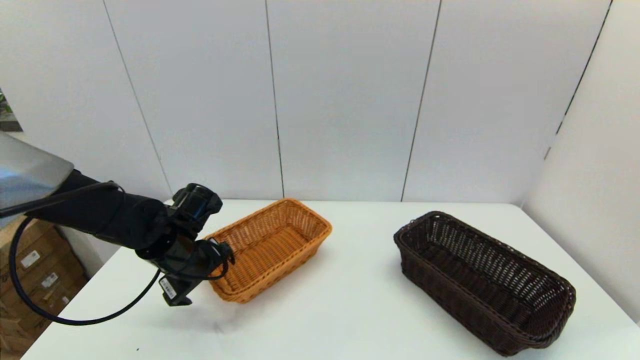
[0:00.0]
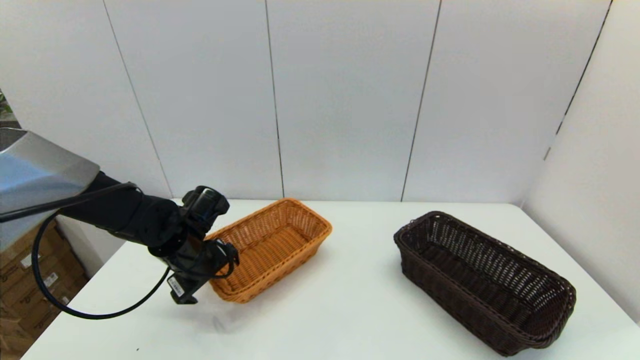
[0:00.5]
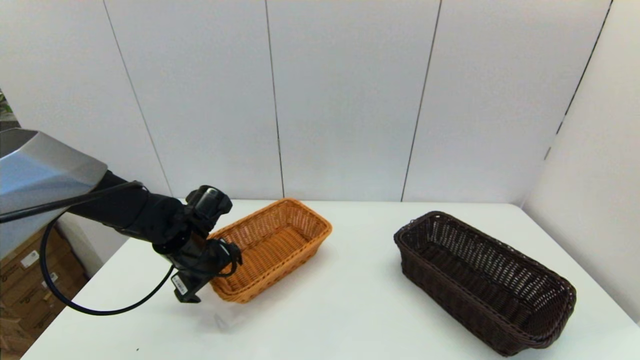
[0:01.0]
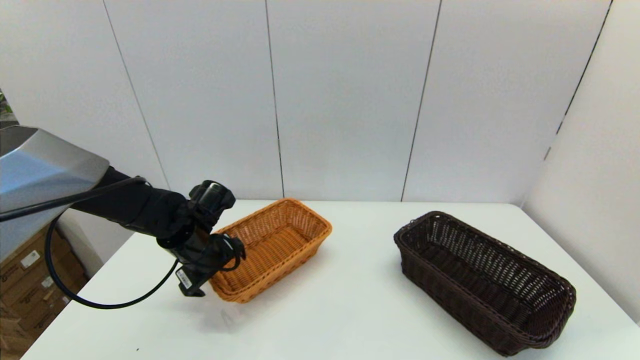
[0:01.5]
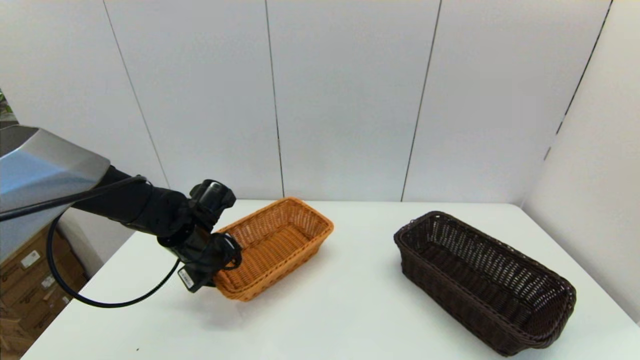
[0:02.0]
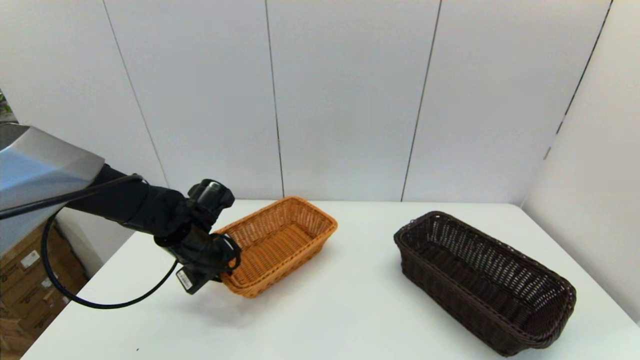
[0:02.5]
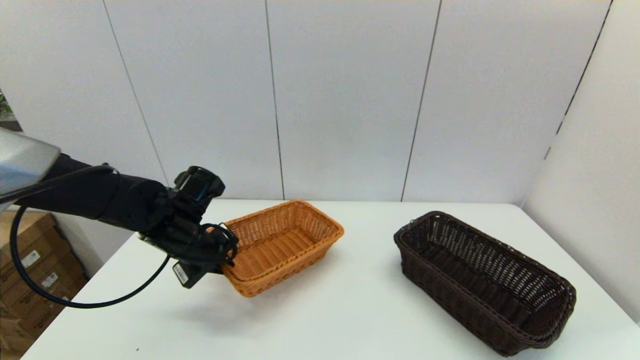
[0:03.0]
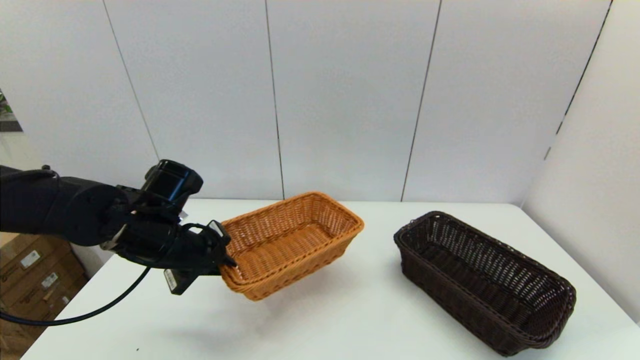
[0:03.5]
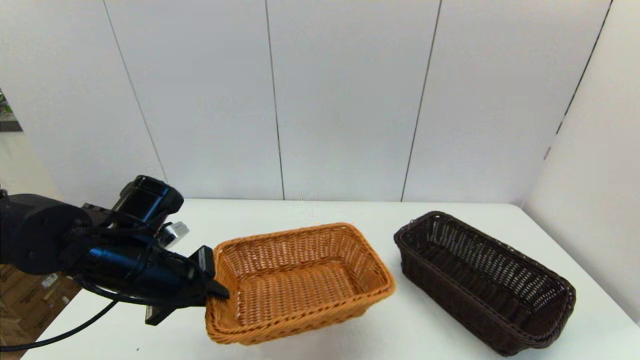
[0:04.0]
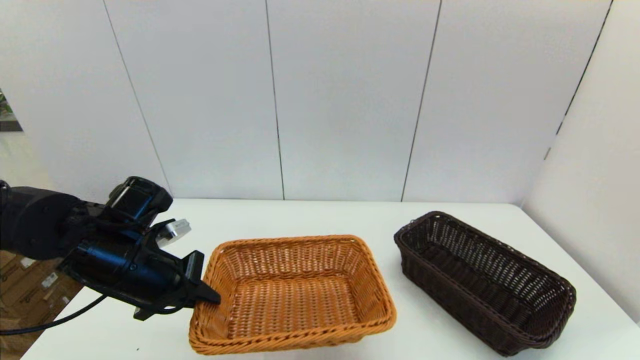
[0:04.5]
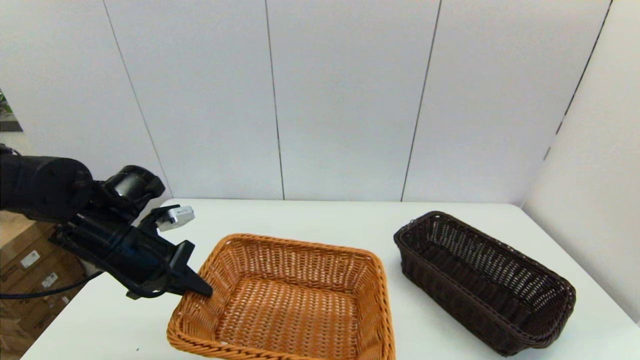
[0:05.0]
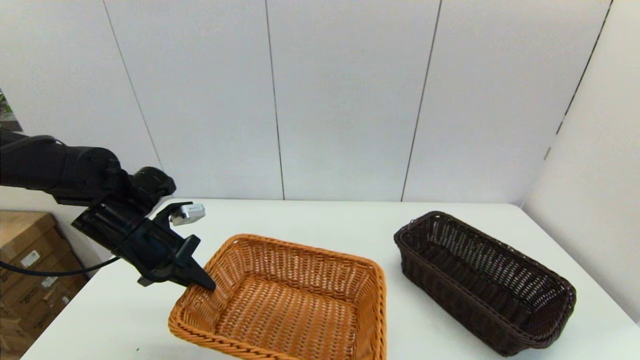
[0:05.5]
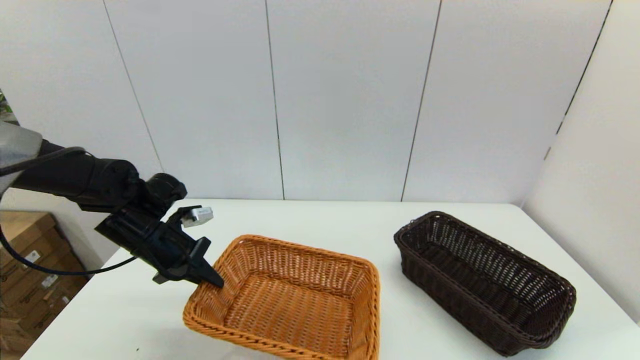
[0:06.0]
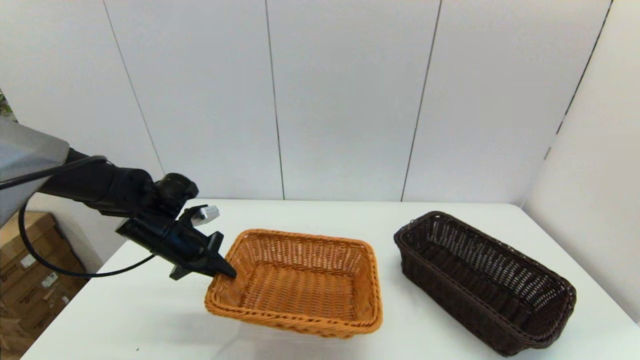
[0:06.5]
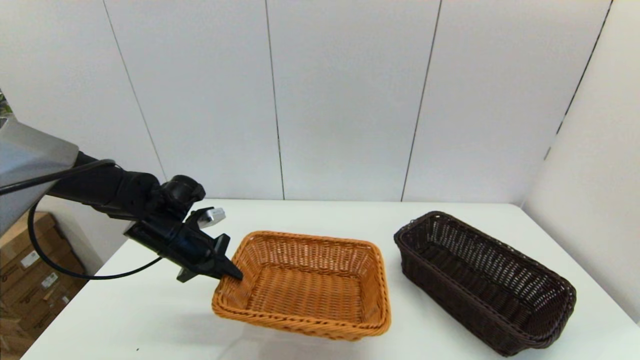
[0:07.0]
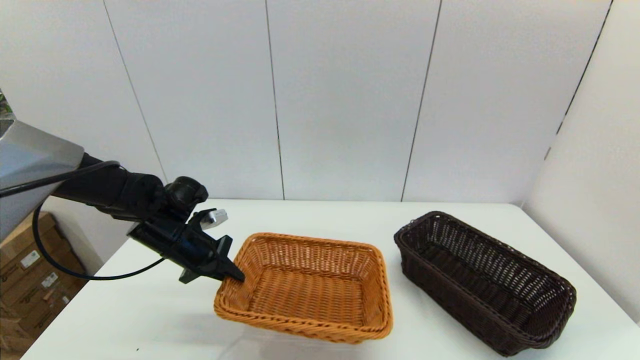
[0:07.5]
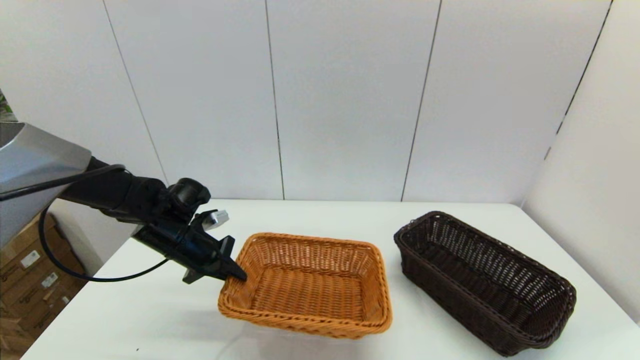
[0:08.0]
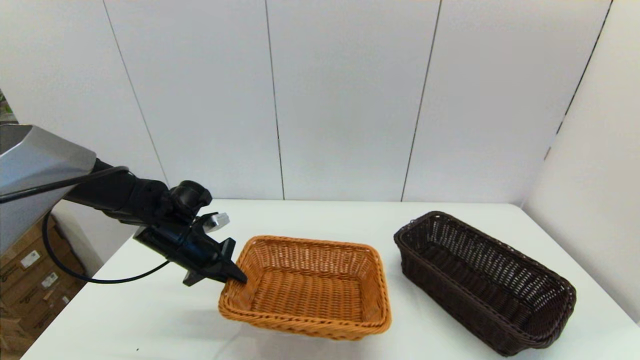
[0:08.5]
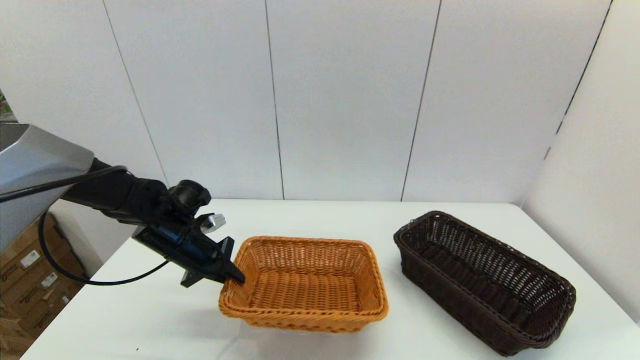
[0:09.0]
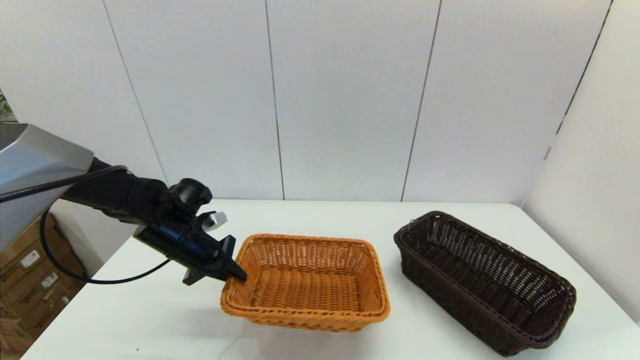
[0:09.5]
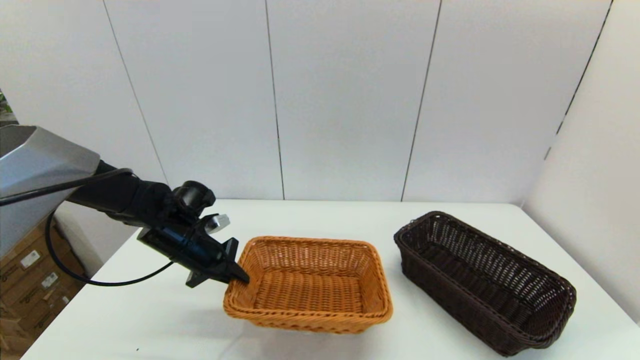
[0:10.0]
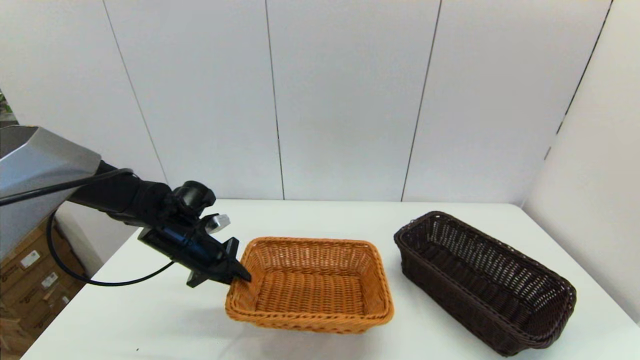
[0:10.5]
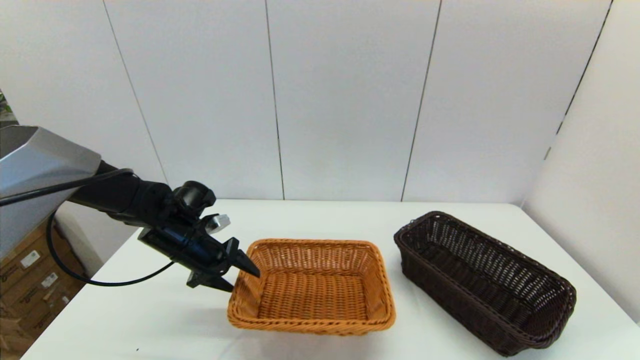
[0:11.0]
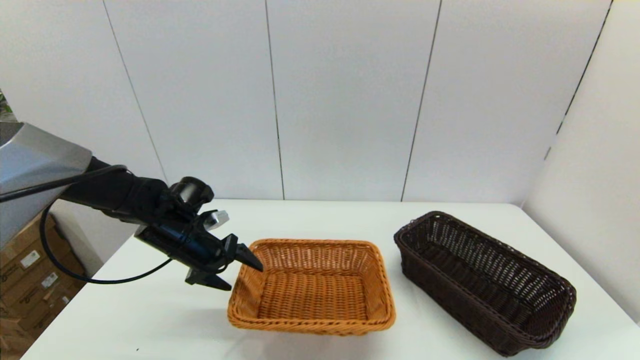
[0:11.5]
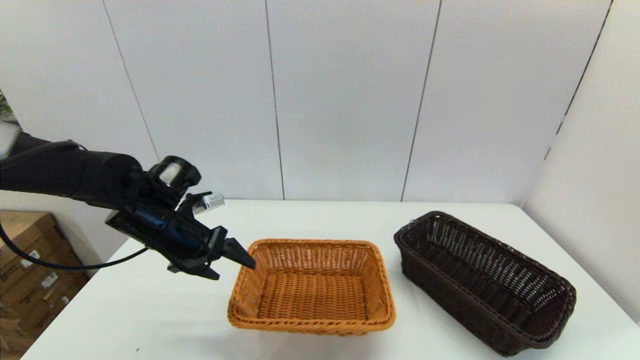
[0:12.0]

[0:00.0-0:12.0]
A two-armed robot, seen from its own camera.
Task of the whole recording: stack a basket on top of another basket.
Step, 0:00.0 to 0:02.0: Grasp the light basket with the left gripper.
Step, 0:03.0 to 0:11.0: Place the light basket on the middle of the table with the left gripper.
0:00.0 to 0:02.0: The left gripper closes up.
0:02.0 to 0:04.0: The left gripper travels backward and upward by about 10 cm, and closes up.
0:04.0 to 0:06.0: The left gripper moves forward, approximately 10 cm.
0:06.0 to 0:10.0: The grippers stay close to where they were, moving slightly.
0:10.0 to 0:12.0: The left gripper travels upward by roughly 5 cm, and opens.

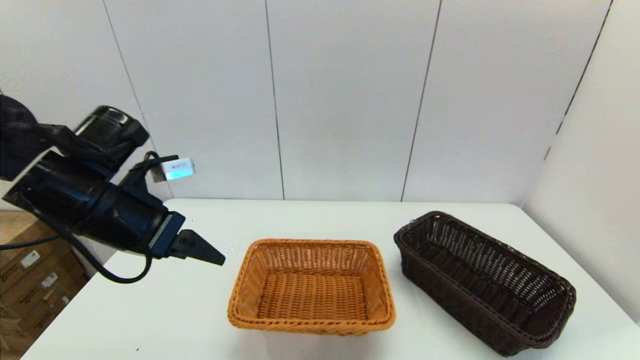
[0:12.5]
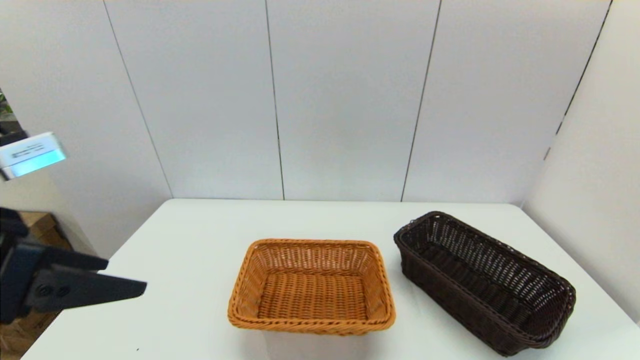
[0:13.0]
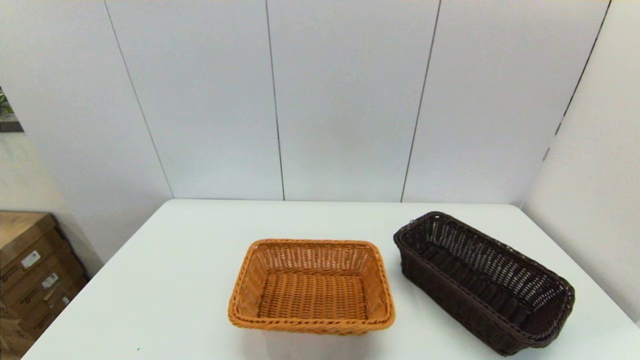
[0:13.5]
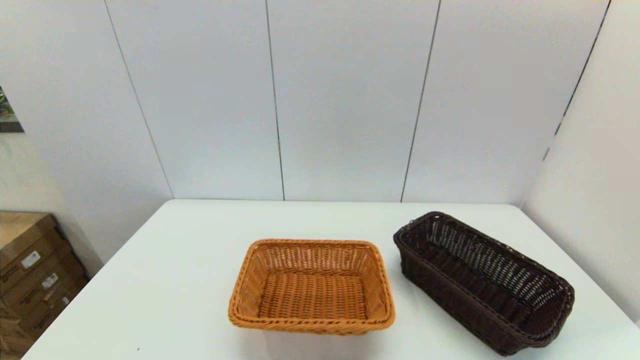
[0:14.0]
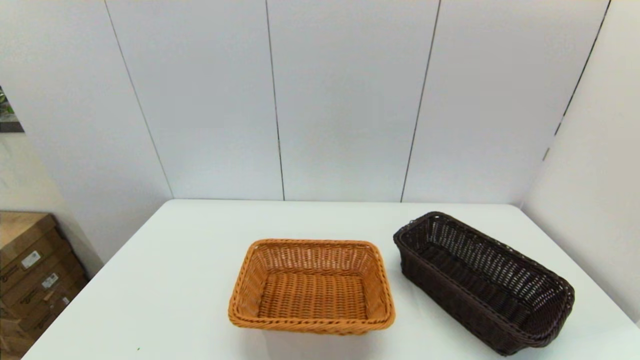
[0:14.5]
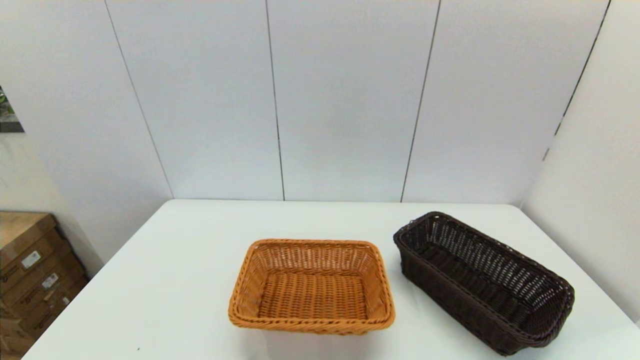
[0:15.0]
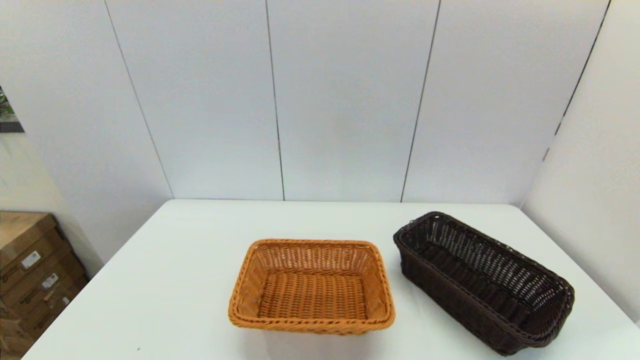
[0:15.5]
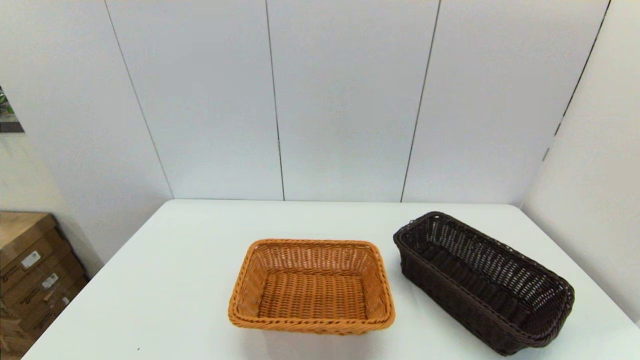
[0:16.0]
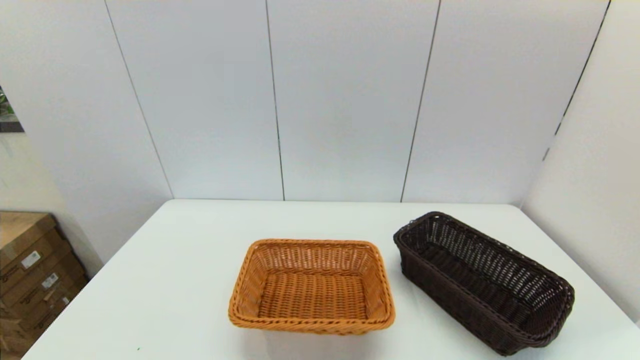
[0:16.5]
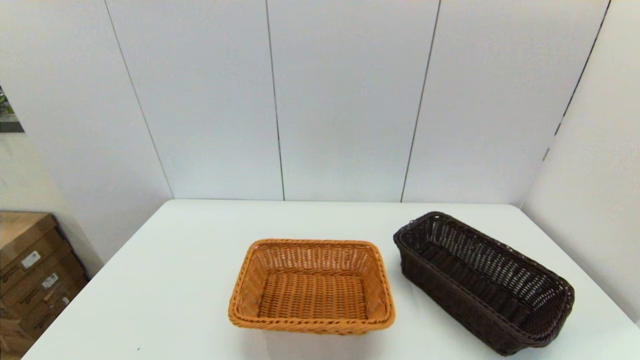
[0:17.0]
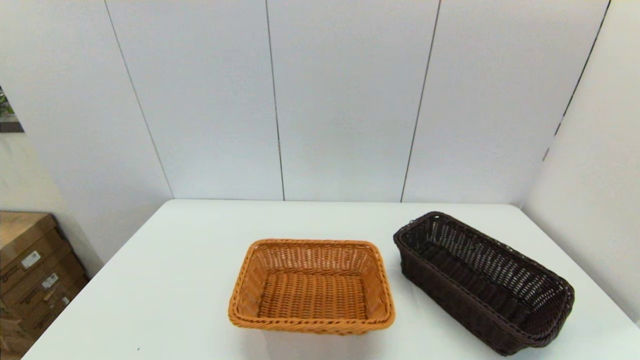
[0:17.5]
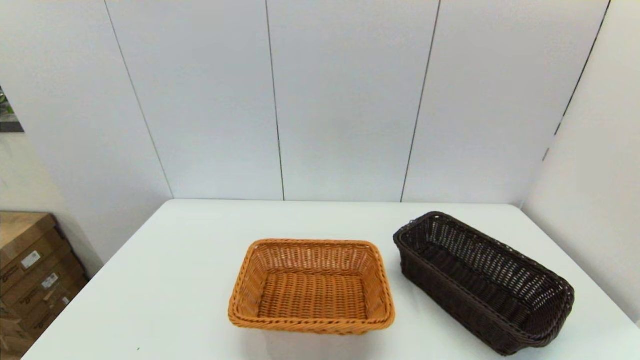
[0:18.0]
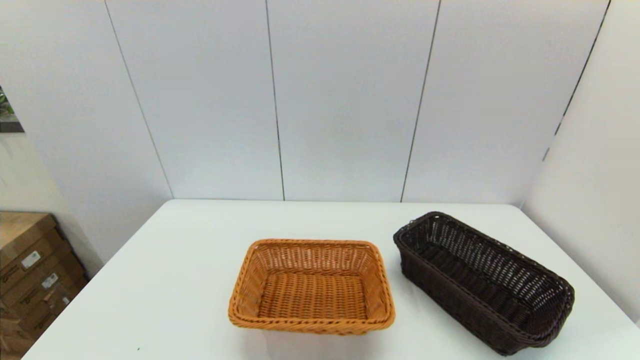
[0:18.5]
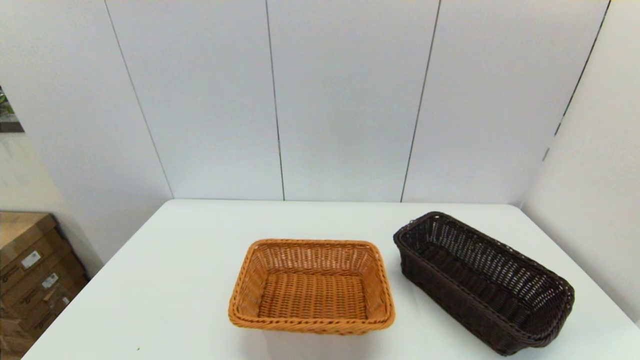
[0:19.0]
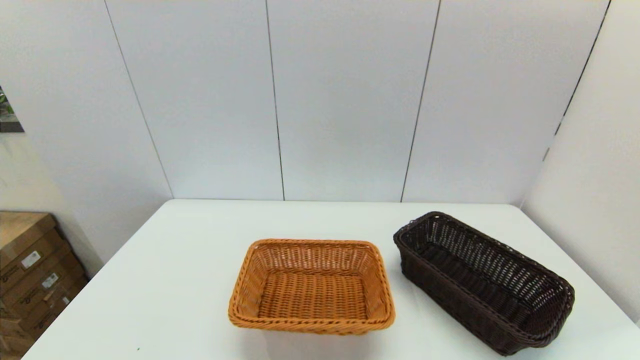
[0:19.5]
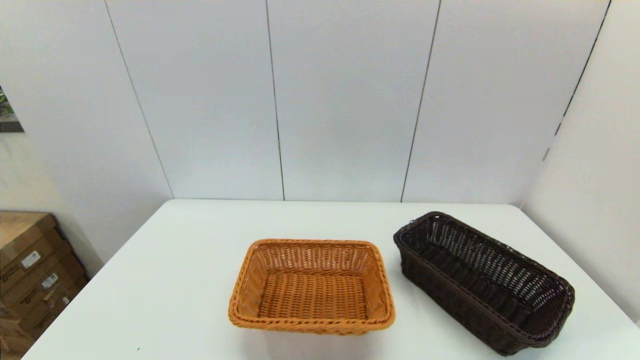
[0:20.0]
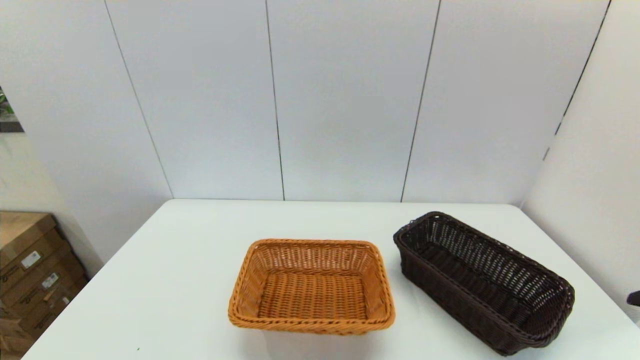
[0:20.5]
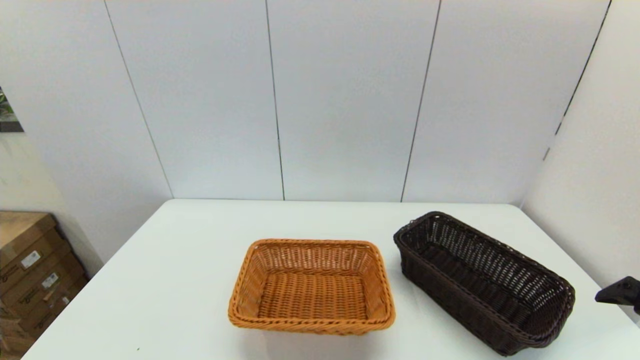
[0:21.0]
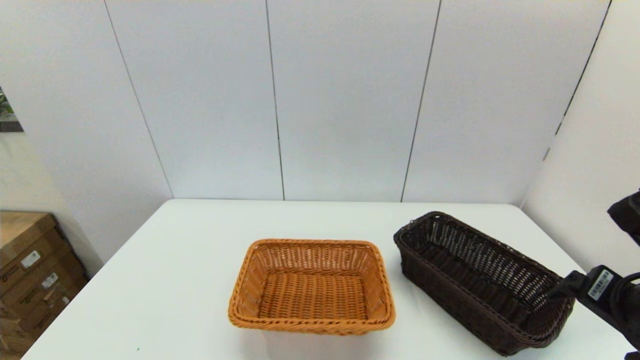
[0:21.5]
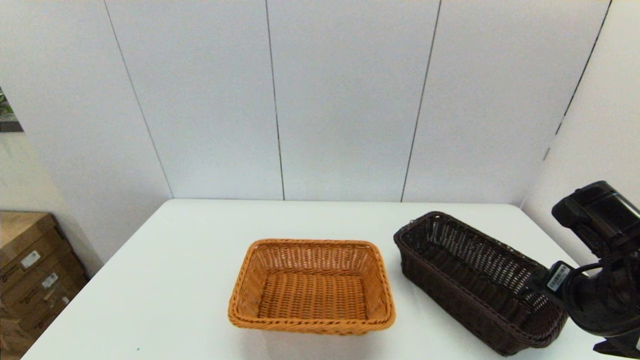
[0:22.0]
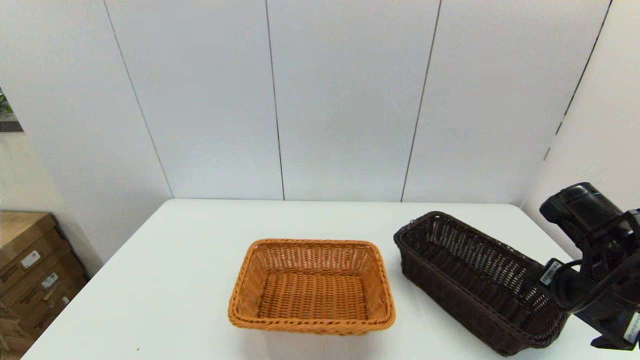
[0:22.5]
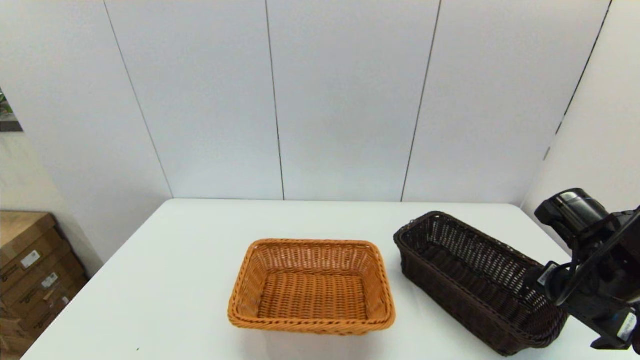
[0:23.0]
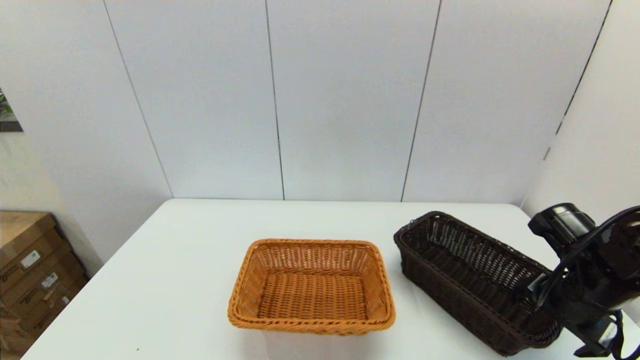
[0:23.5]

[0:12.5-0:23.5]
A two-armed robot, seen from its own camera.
Task of the whole recording: stack a basket on top of another basket.
0:12.5 to 0:14.5: The left gripper shifts roughly 30 cm backward.
0:20.0 to 0:21.5: The right gripper shifts about 10 cm forward and to the left.
0:21.5 to 0:23.5: The right gripper moves downward and forward, some 10 cm.
